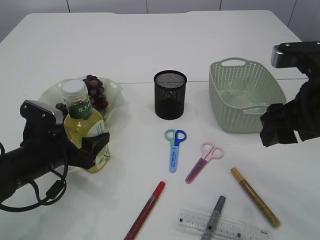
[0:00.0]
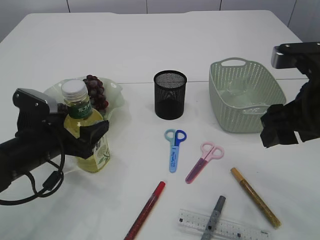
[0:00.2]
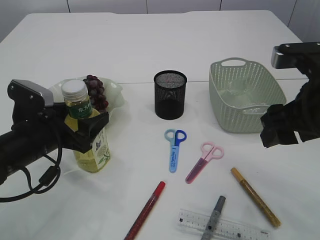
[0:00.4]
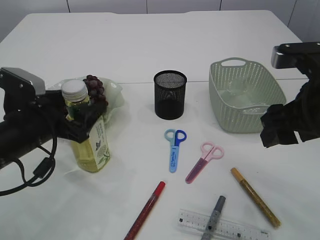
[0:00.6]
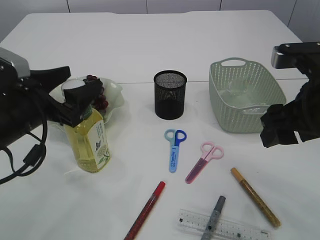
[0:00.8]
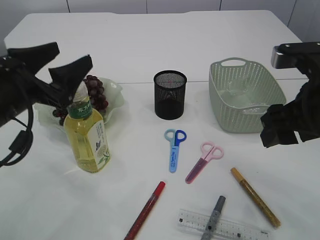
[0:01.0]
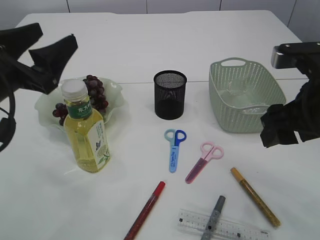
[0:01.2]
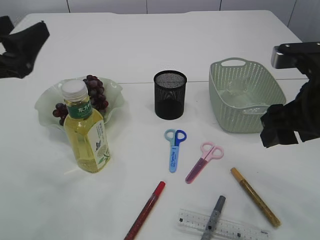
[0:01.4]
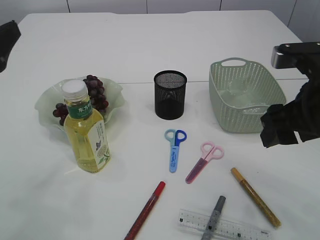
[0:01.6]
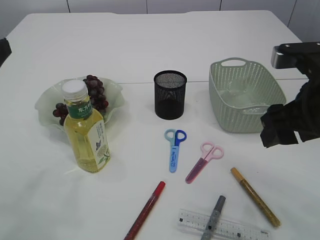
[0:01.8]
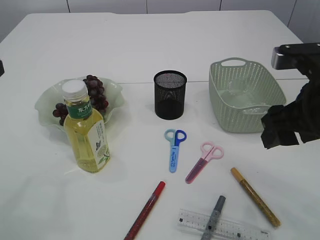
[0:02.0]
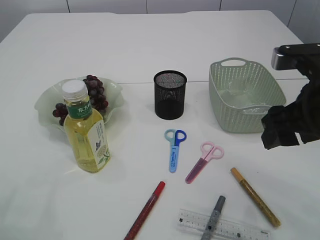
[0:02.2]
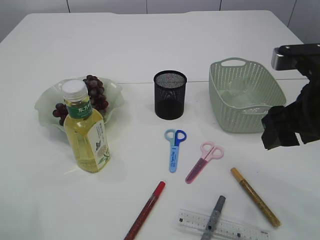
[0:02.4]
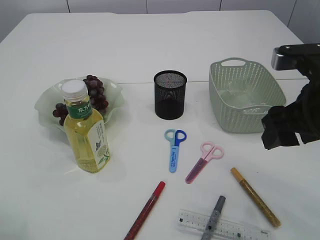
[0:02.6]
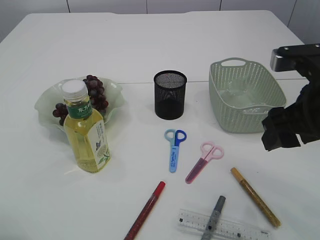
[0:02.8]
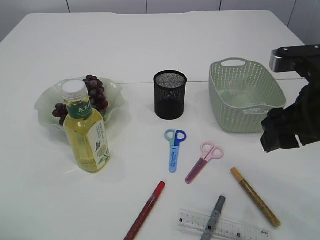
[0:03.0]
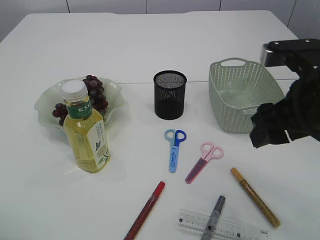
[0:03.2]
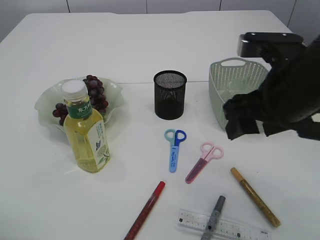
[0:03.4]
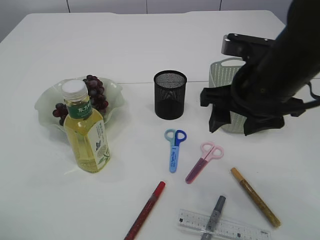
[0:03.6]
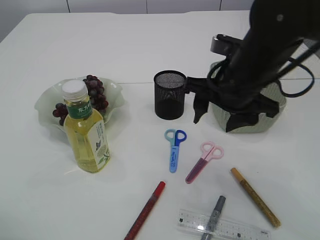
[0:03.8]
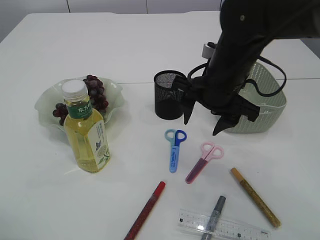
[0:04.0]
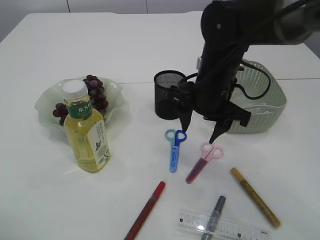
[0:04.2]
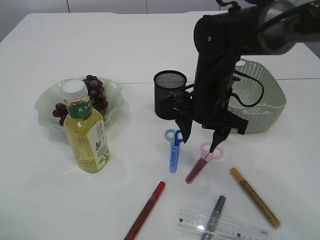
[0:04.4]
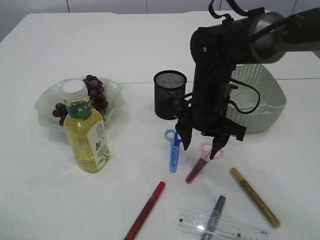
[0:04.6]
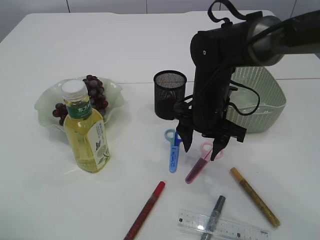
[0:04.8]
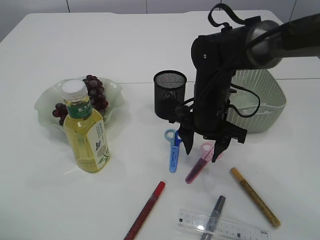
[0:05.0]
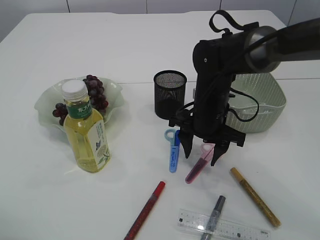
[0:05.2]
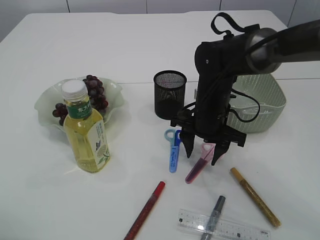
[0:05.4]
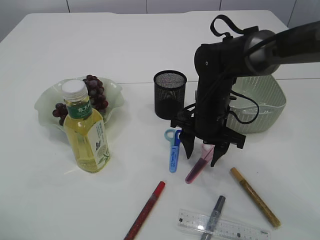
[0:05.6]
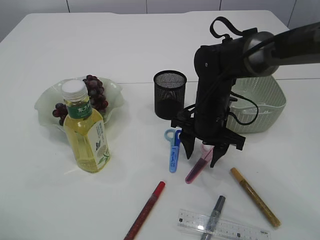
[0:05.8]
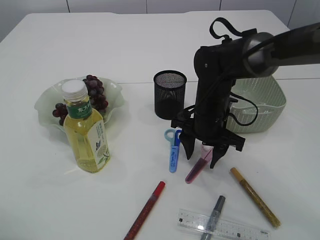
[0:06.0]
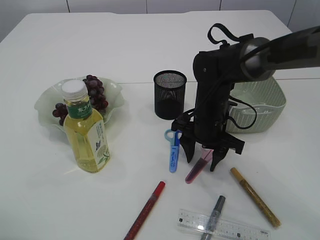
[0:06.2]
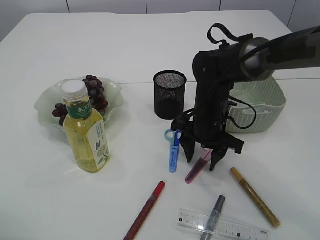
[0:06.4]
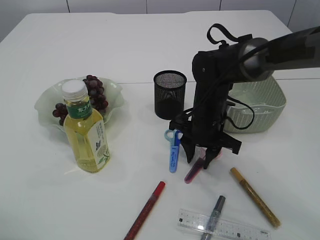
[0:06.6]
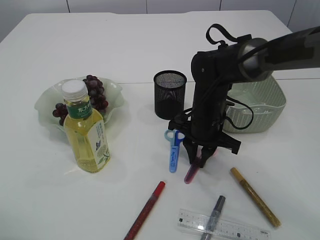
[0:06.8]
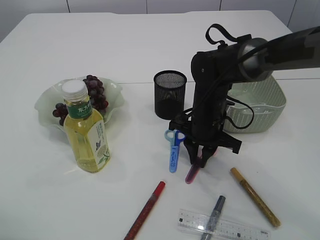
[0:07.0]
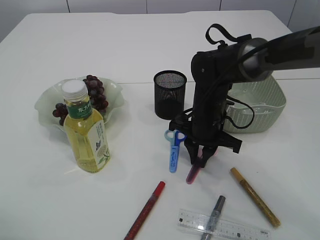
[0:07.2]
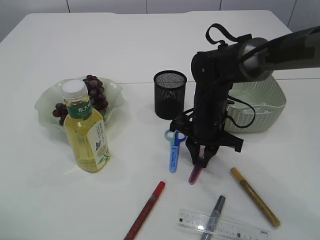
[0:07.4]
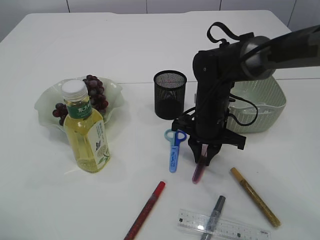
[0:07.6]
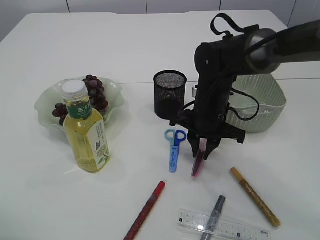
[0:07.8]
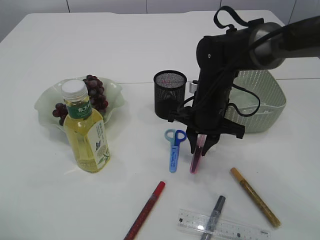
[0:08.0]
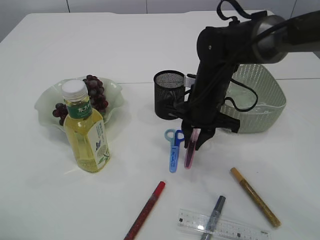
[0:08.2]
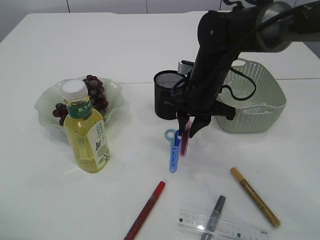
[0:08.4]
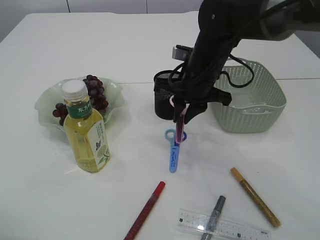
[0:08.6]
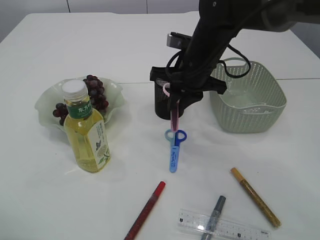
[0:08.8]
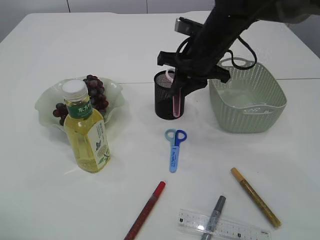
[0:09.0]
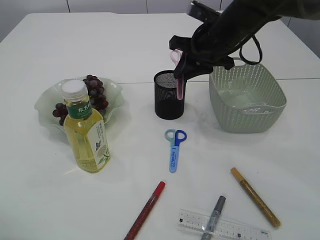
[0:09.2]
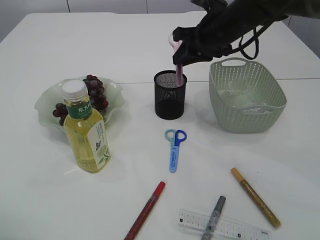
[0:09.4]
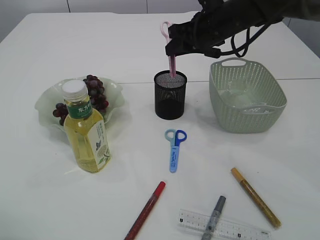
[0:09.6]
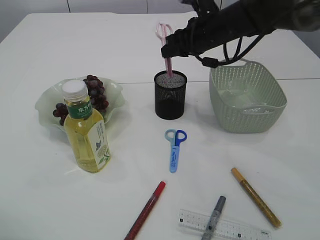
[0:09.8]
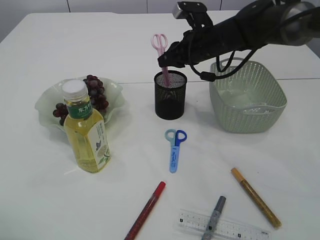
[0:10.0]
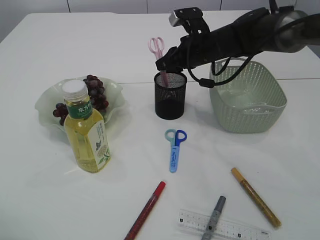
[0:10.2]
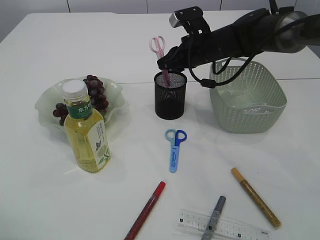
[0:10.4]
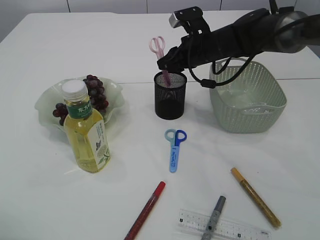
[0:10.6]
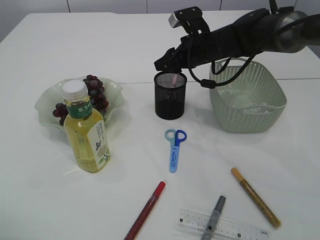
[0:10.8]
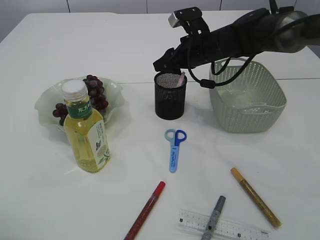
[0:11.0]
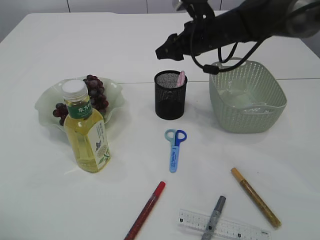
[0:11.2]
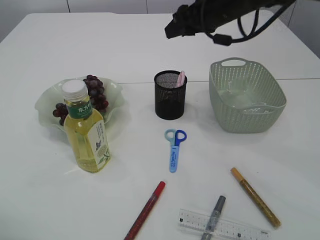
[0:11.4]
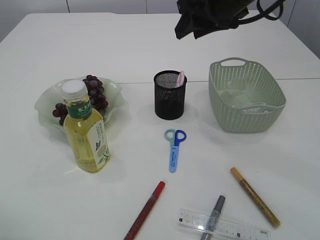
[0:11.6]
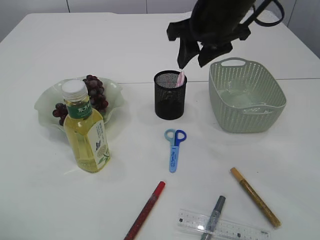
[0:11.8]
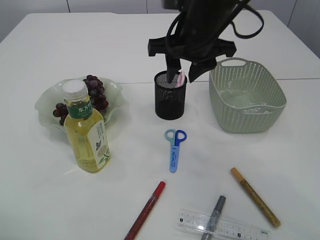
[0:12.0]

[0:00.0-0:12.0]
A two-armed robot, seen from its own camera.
Step, 0:01.2 to 0:08.4: pick up the pink scissors.
Step, 0:08.6 to 0:11.6: Place the blue scissors into the pen holder.
0:00.0 to 0:01.6: The left gripper is displaced upward and to the left by roughly 20 cm.
0:01.6 to 0:03.0: The left gripper shifts some 10 cm backward.
0:03.0 to 0:04.4: The right gripper is displaced forward, to the left and downward by roughly 20 cm.
0:04.4 to 0:06.0: The right gripper heads downward, covering some 5 cm.
0:06.0 to 0:07.6: The right gripper closes.
0:07.6 to 0:09.0: The right gripper goes roughly 10 cm upward.
0:09.0 to 0:10.4: The right gripper shifts some 5 cm forward.
0:10.4 to 0:12.0: The right gripper goes roughly 15 cm backward and upward, and opens its fingers.

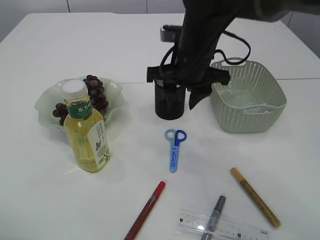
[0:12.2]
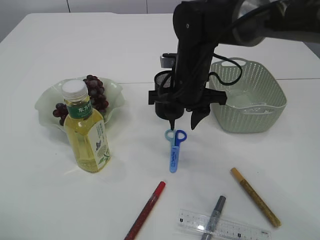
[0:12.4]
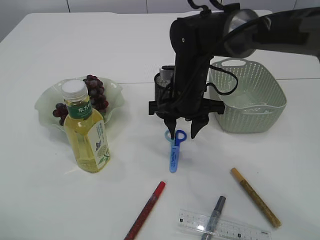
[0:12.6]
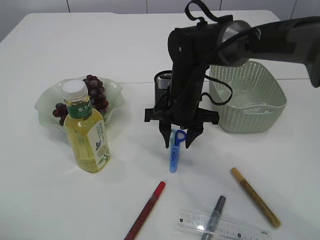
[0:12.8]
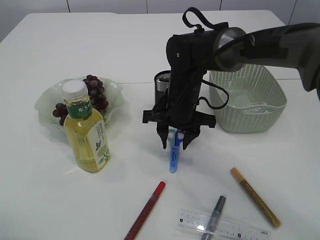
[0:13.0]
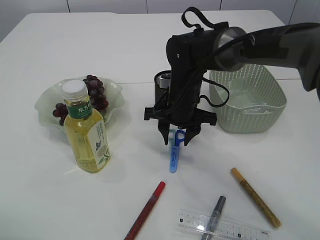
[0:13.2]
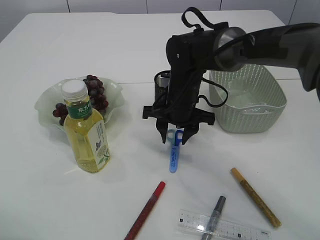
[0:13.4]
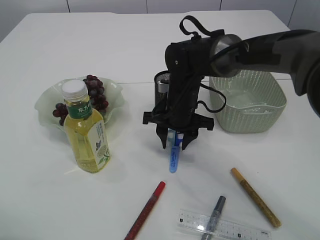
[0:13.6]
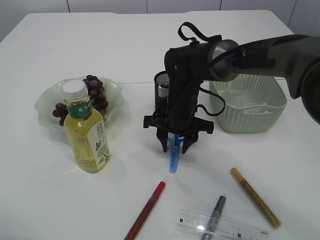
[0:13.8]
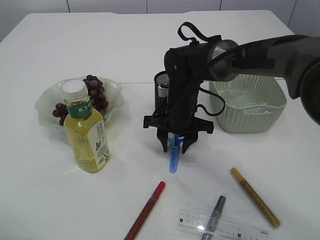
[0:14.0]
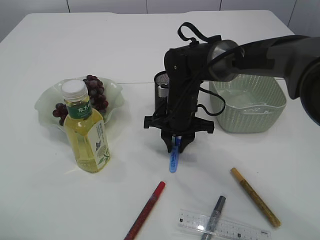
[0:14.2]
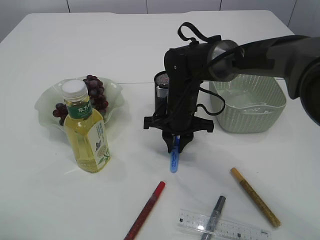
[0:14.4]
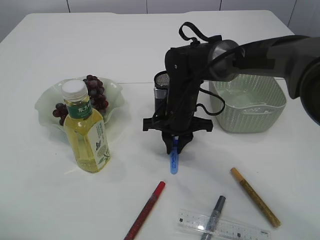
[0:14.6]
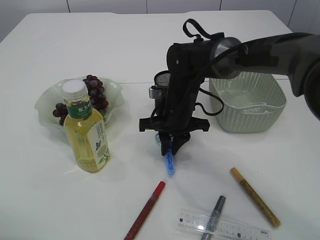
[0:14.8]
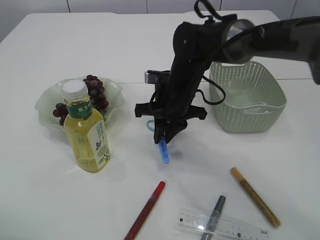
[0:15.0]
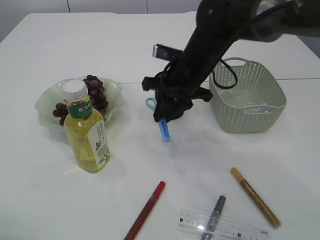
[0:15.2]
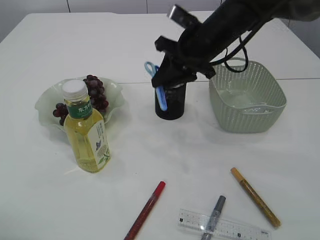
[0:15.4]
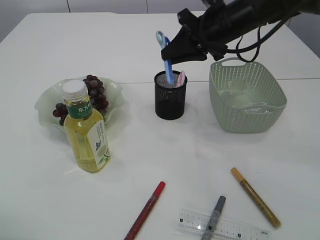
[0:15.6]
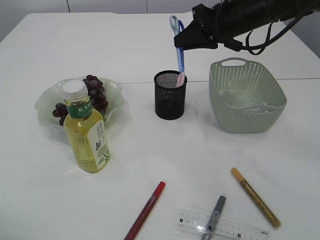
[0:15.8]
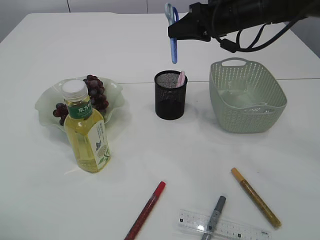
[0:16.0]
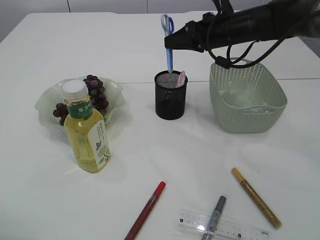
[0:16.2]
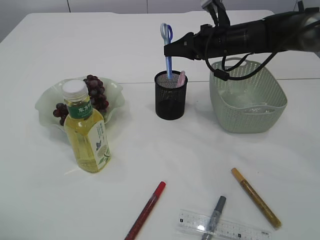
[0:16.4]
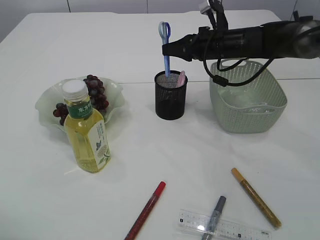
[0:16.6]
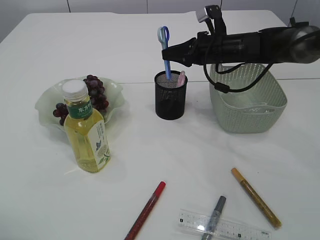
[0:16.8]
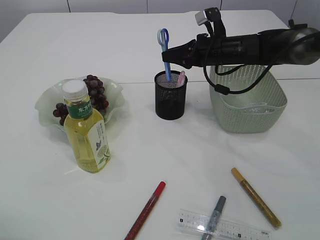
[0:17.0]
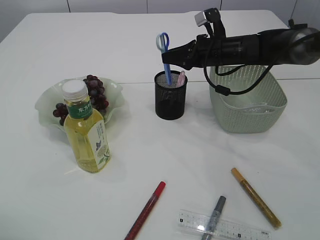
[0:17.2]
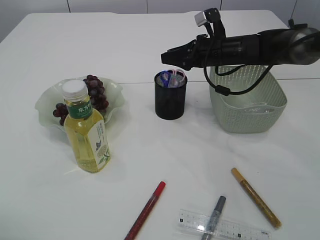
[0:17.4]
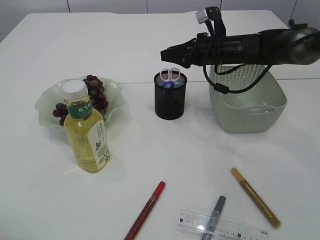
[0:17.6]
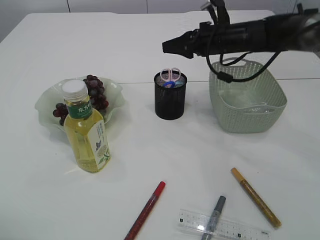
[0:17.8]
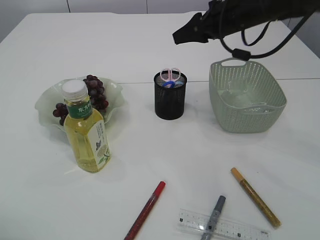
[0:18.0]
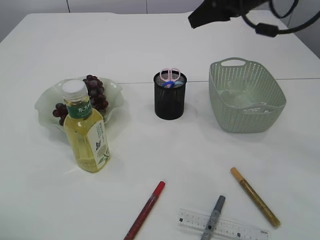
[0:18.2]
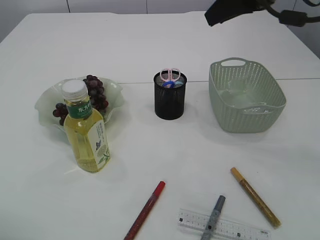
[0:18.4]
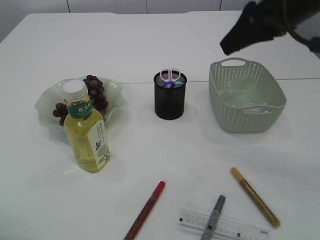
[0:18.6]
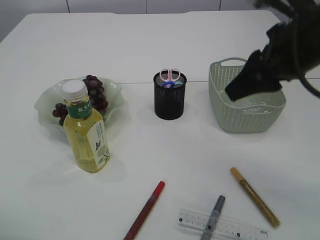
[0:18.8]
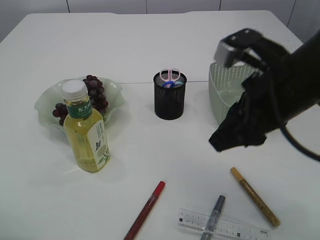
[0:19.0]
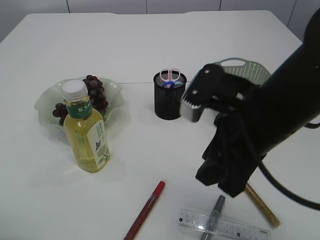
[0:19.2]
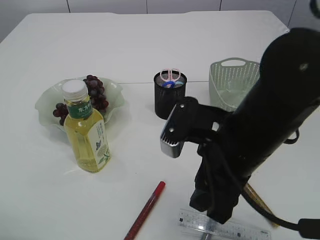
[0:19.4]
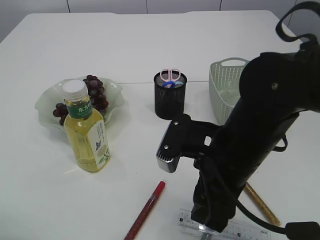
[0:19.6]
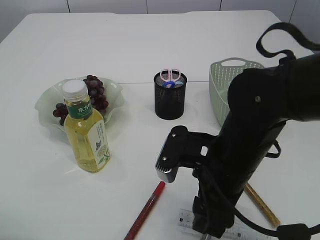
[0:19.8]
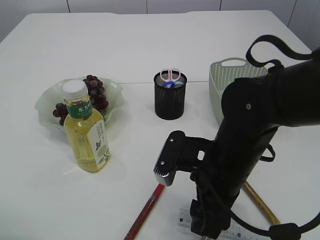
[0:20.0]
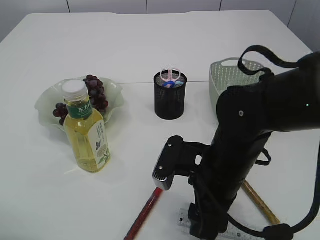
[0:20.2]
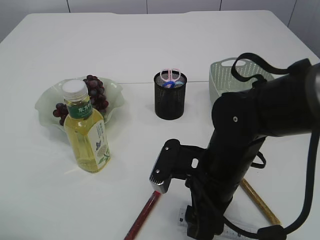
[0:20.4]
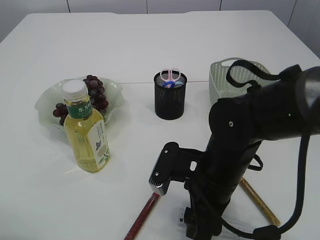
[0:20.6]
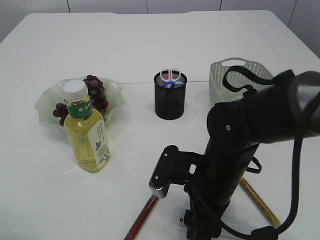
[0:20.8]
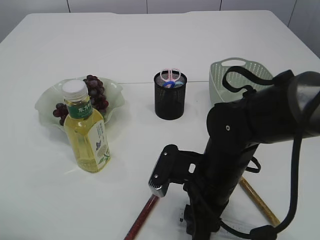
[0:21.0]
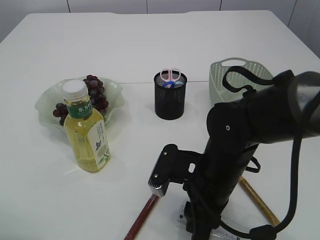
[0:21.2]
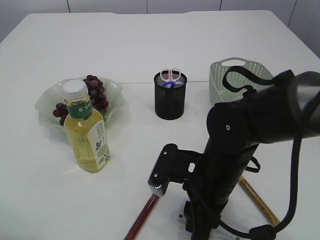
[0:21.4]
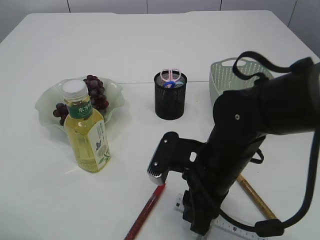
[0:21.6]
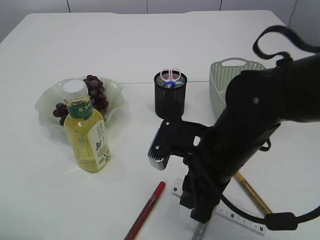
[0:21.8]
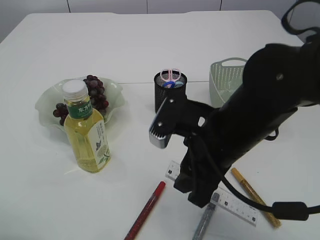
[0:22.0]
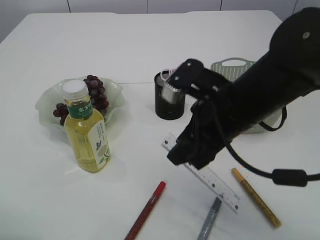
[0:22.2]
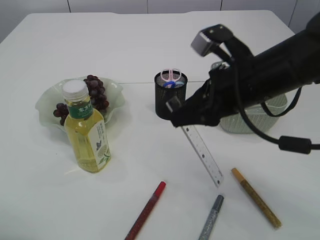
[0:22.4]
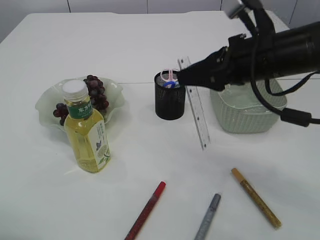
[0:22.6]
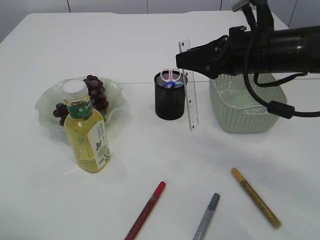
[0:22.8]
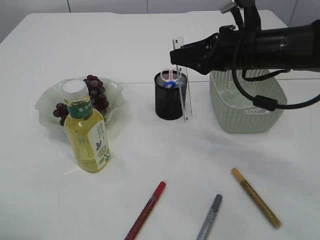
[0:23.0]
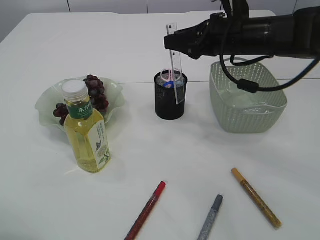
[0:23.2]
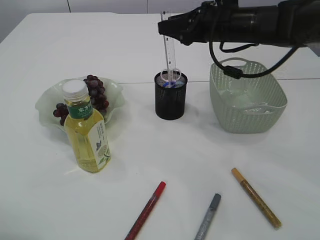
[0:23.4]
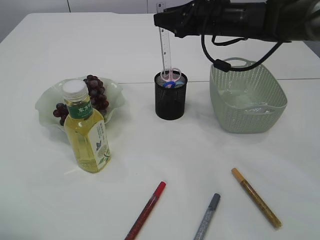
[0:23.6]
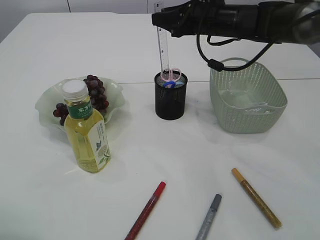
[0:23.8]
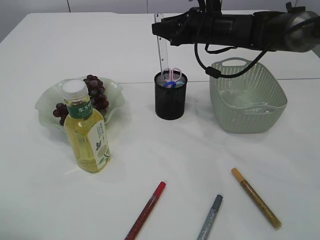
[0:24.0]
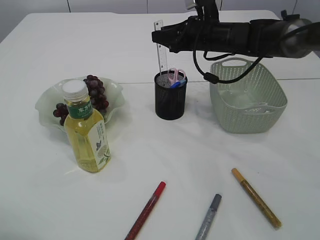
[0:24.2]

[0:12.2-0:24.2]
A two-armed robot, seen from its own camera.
Step, 0:12.2 to 0:15.2: pick up the blue scissors.
Step, 0:15.4 to 0:18.0: Place the blue scissors into the pen holder.
Step, 0:18.2 to 0:22.2: pick up the ruler.
0:12.2 to 0:13.8: The right gripper heads downward, covering some 10 cm.
0:13.8 to 0:15.2: The right gripper shifts about 10 cm upward, and closes up.
0:15.2 to 0:16.6: The right gripper moves to the right and forward, roughly 10 cm.
0:16.6 to 0:18.2: The right gripper is displaced upward and backward by approximately 15 cm.
0:18.2 to 0:19.8: The right gripper is displaced backward, downward and to the left by approximately 25 cm.
0:19.8 to 0:21.2: The right gripper heads downward, covering approximately 5 cm.
0:21.2 to 0:22.6: The right gripper moves upward, to the right and forward, some 20 cm.
0:22.6 to 0:24.2: The right gripper shifts about 20 cm forward.
